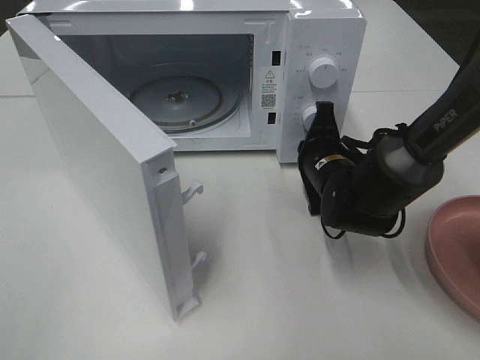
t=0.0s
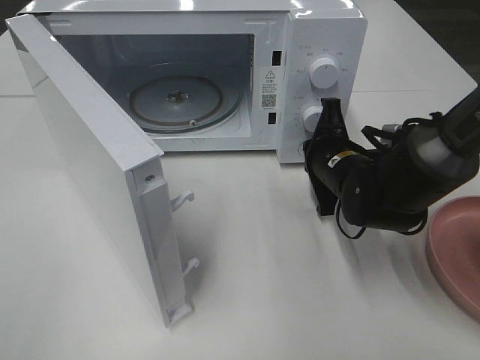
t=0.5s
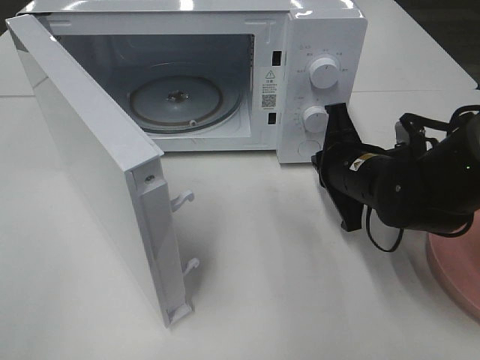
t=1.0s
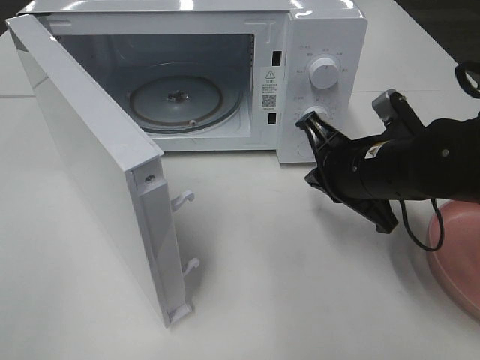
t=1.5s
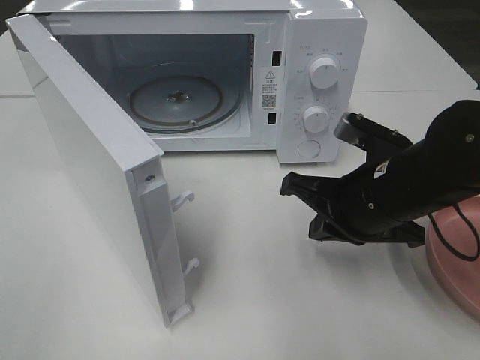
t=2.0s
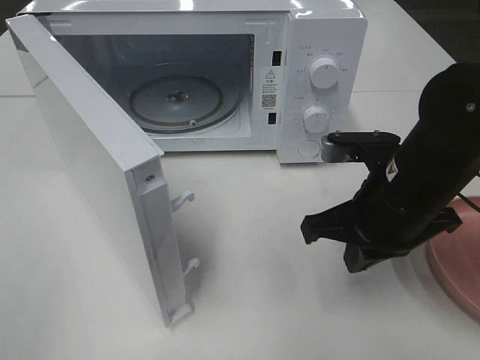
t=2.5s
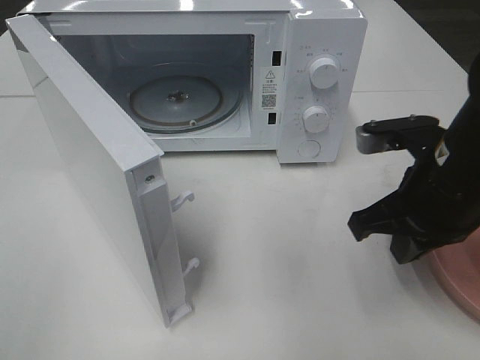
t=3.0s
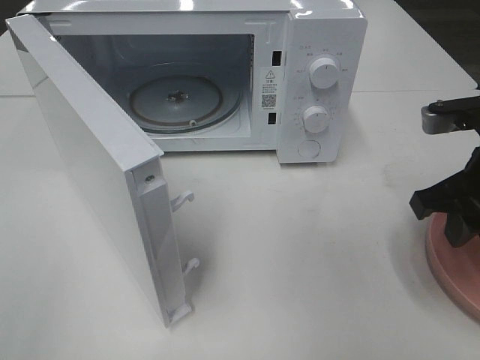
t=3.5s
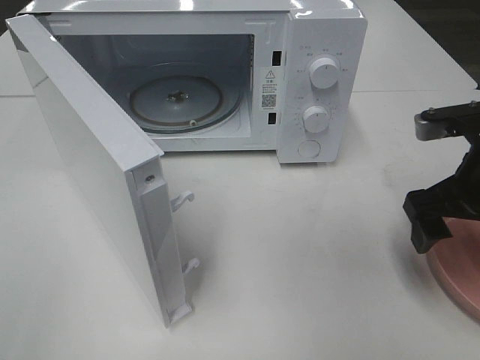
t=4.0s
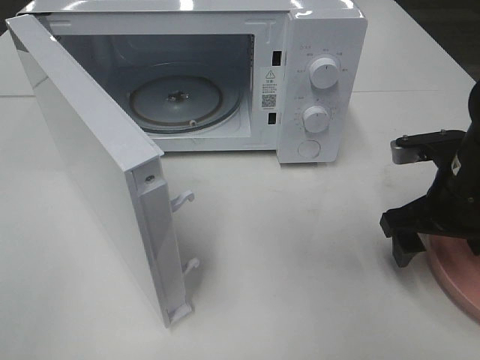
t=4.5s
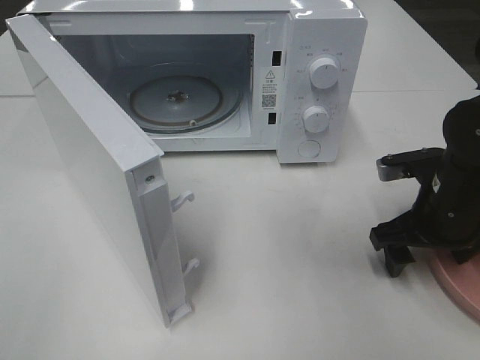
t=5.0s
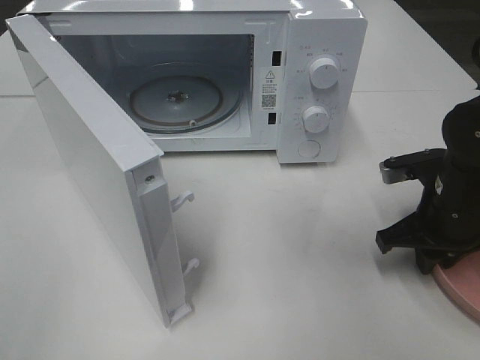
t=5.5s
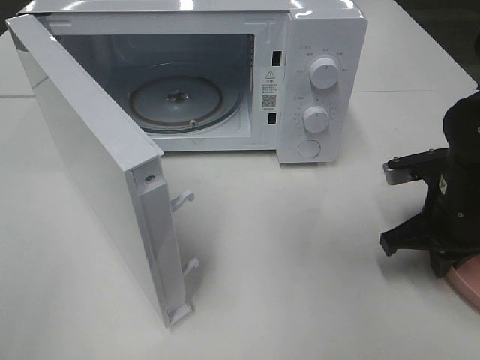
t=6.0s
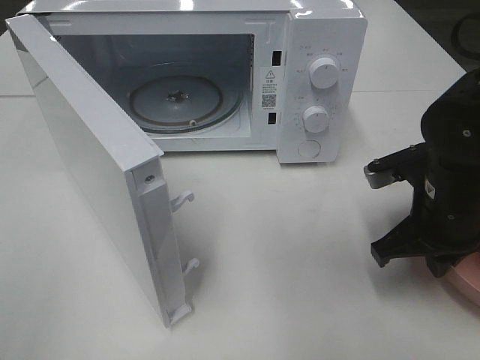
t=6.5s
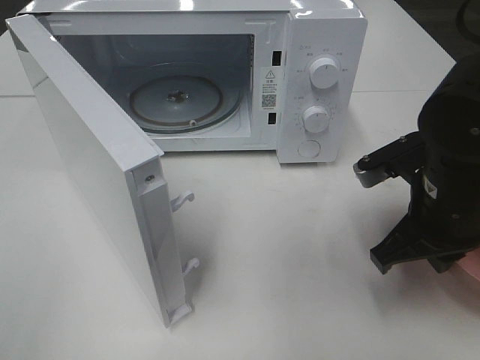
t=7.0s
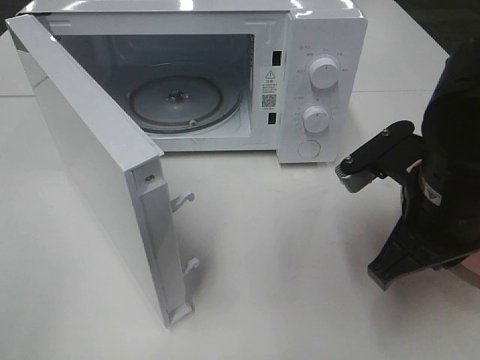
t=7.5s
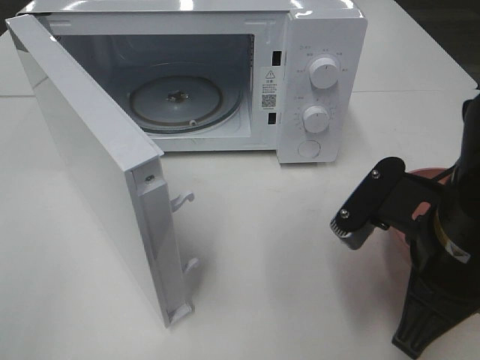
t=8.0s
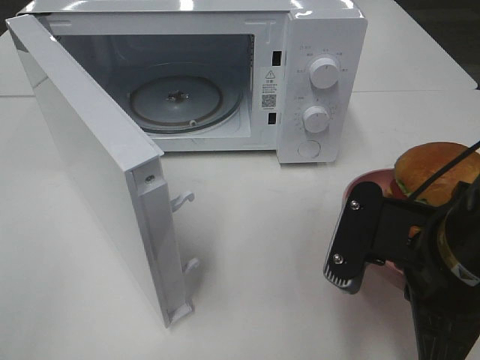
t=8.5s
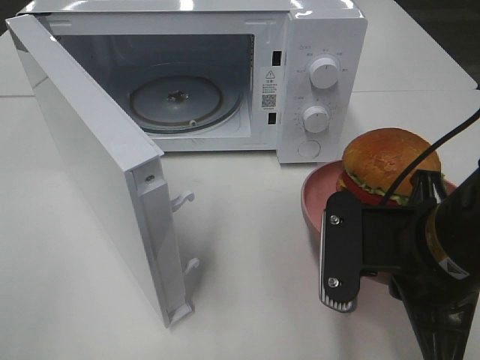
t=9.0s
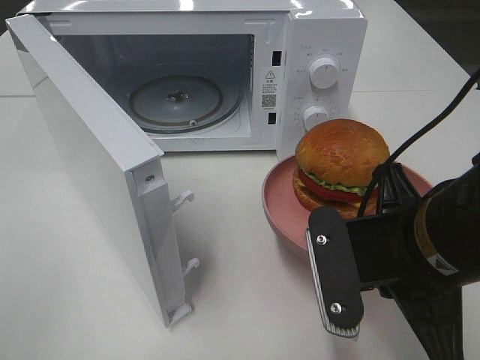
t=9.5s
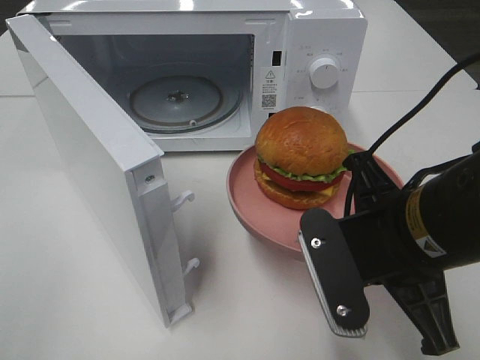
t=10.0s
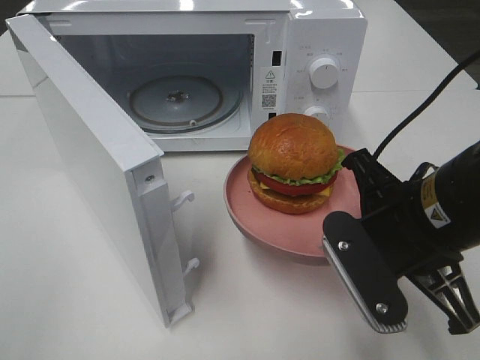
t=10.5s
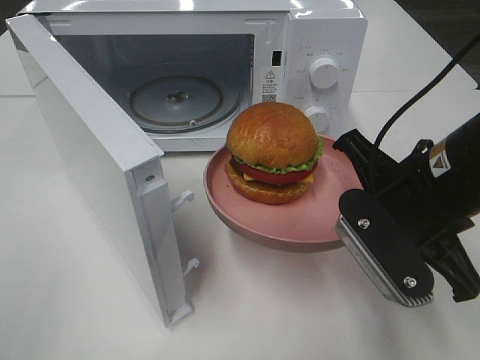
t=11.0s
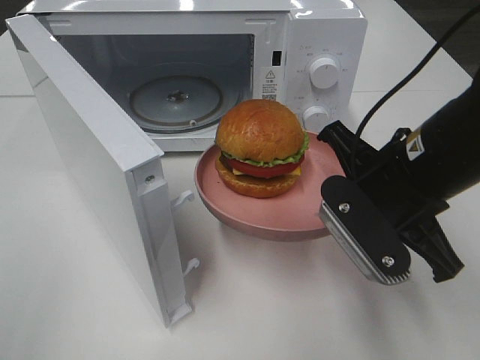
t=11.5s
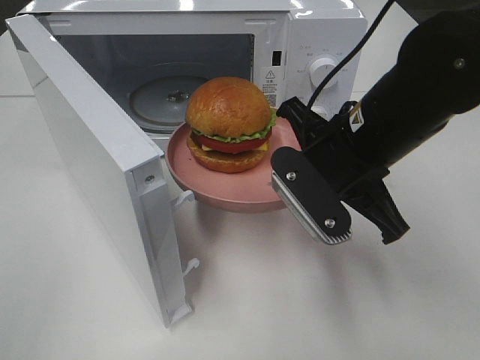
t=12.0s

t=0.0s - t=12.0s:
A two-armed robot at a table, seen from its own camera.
Task of the whole recording: Heat the burger.
Step, t=1.0s - t=5.5s: Right hand: grab the plate with the hamburger.
t=0.0s - t=2.0s: The right gripper moves backward and upward, roughly 15 cm.
t=2.0s - t=4.0s: The right gripper heads to the right, covering approximately 10 cm, and opens its fingers.
t=4.0s - t=6.0s: The right gripper goes approximately 5 cm downward, and closes up.
t=6.0s - t=8.0s: The right gripper goes roughly 15 cm backward, to the left and upward.
t=10.0s - t=12.0s: The right gripper heads forward, covering roughly 10 cm.

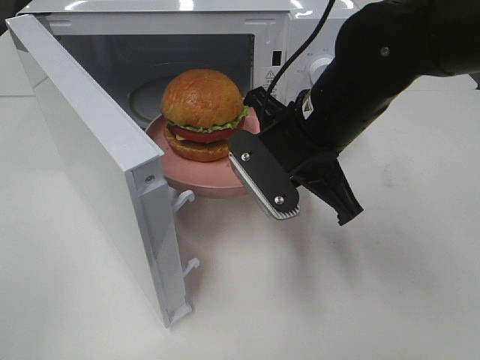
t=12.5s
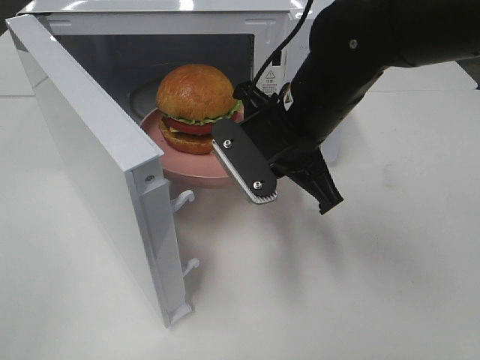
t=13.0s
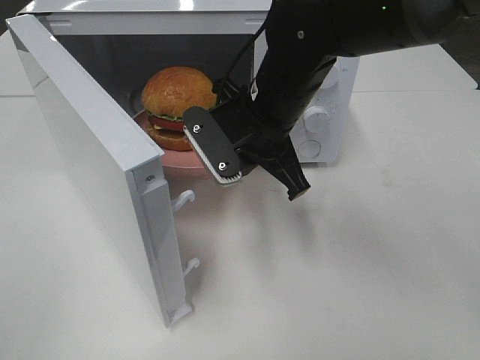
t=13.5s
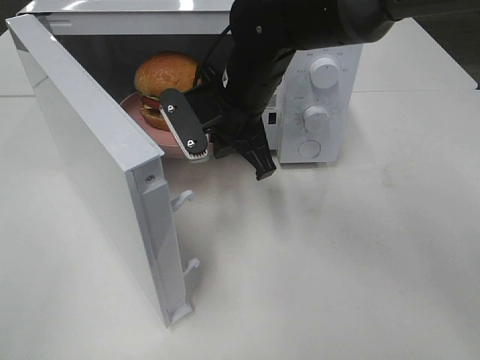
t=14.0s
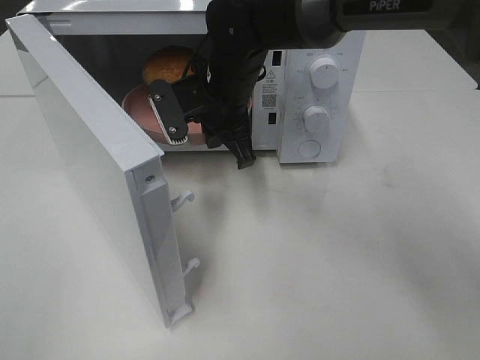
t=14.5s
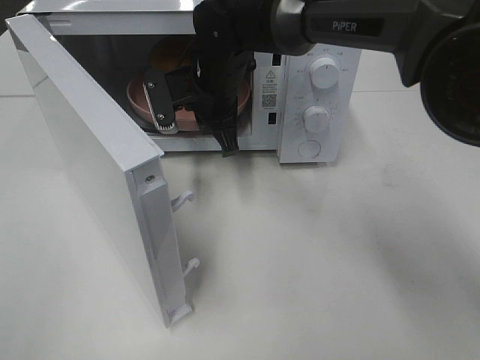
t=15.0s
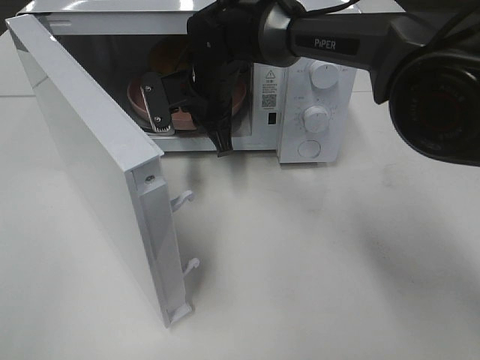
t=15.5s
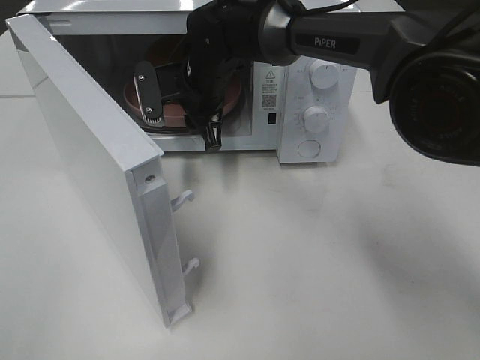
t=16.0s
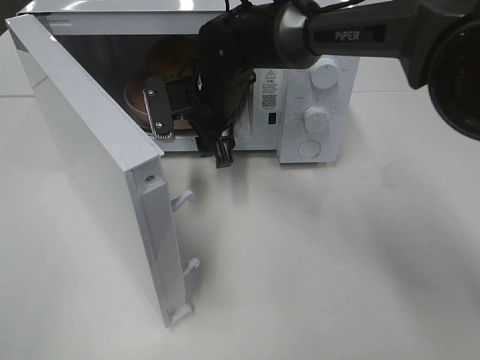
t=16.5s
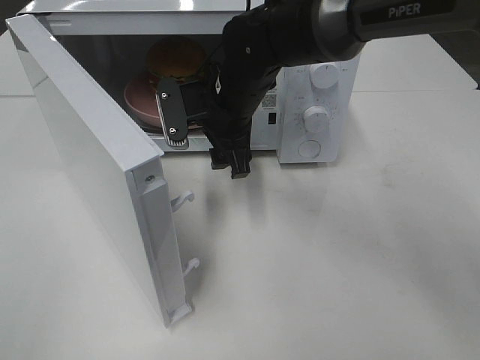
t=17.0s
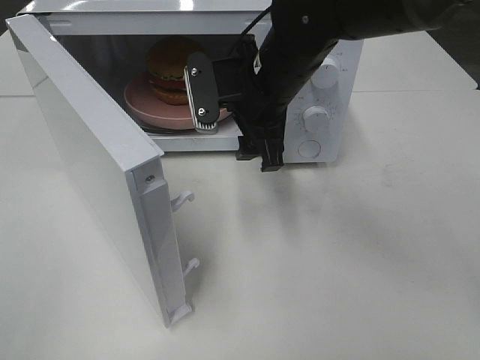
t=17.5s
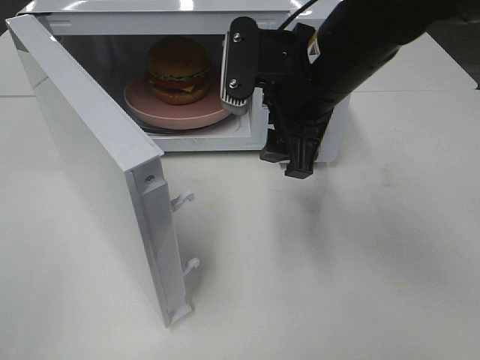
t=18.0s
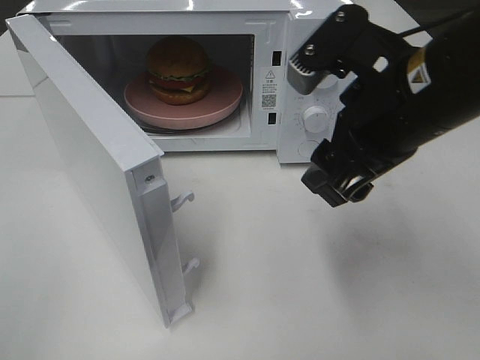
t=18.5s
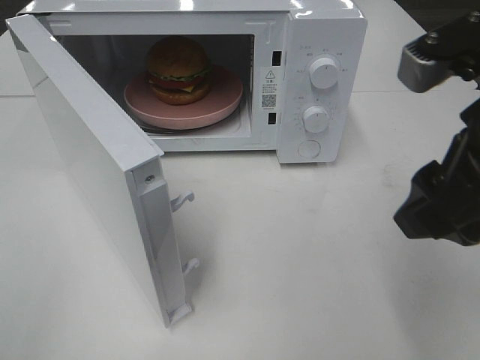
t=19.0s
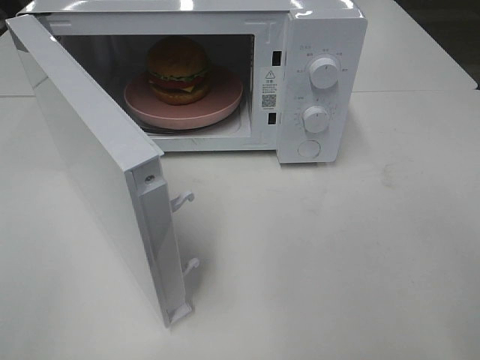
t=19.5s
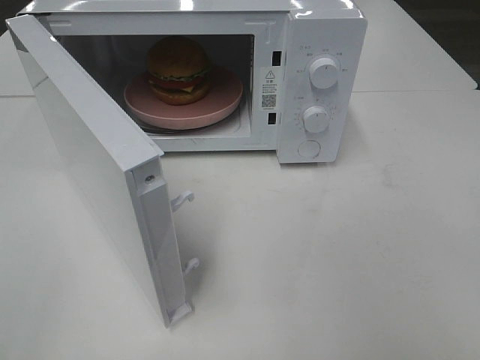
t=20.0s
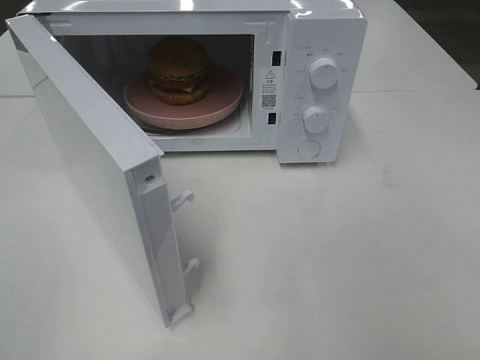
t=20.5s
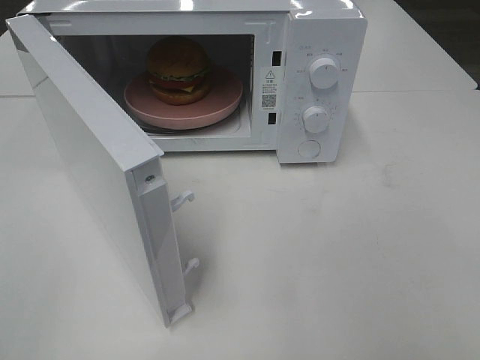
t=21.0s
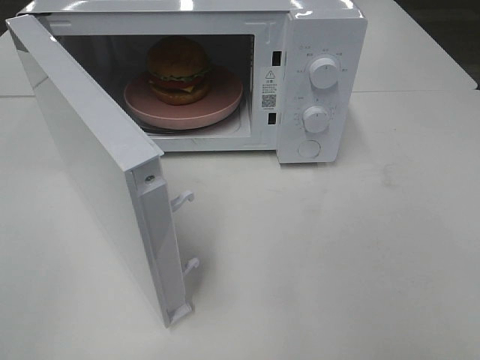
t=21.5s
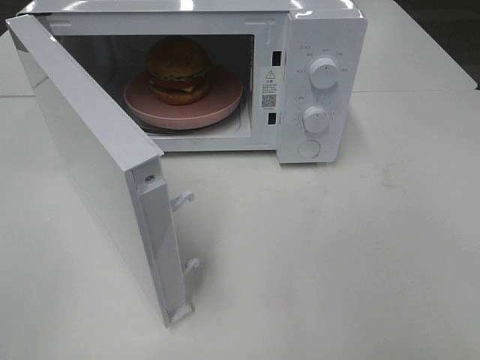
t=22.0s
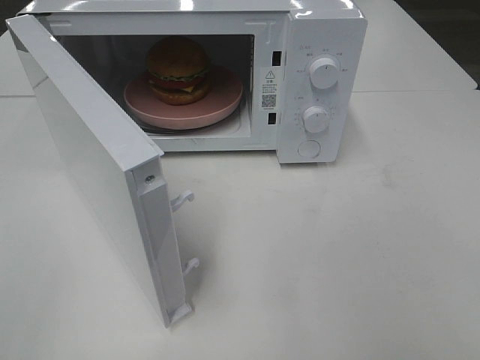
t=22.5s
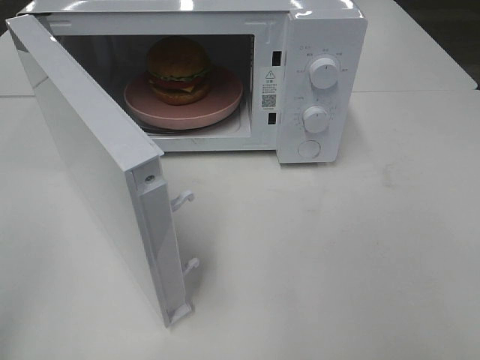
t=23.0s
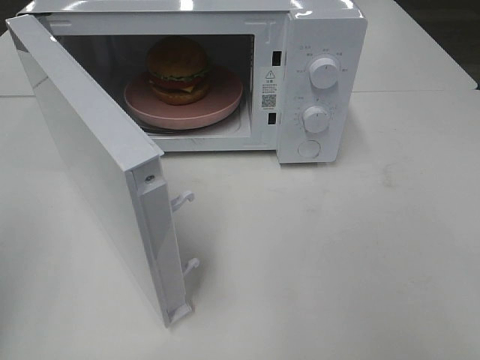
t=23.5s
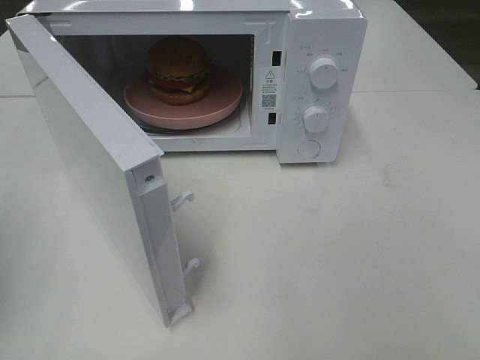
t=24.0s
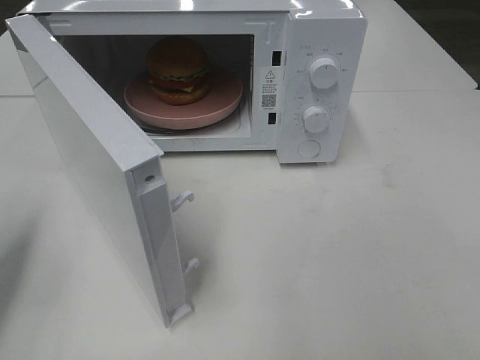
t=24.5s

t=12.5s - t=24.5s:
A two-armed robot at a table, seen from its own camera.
Task of the whole recording: Heat the burger.
Step, t=12.5s - t=15.5s: Right hand: place the plate in the microwave.
t=12.5s - t=14.5s: The right gripper goes about 15 cm forward and to the left.
t=14.5s - t=16.5s: The right gripper opens.
t=16.5s - t=18.5s: The right gripper moves backward, to the right and upward, roughly 25 cm.
t=18.5s - t=20.5s: The right gripper moves backward and to the right, roughly 25 cm.
t=20.5s - t=22.5s: Both grippers stay about where they are.
t=22.5s - t=24.5s: The left gripper moves forward and downward, some 20 cm, and closes up.

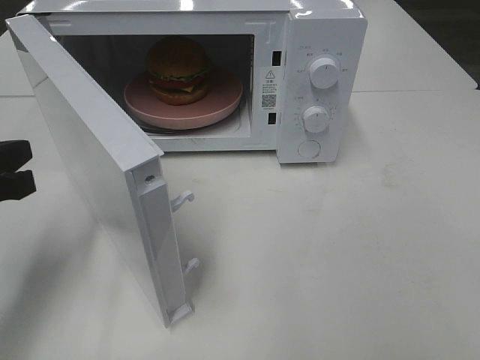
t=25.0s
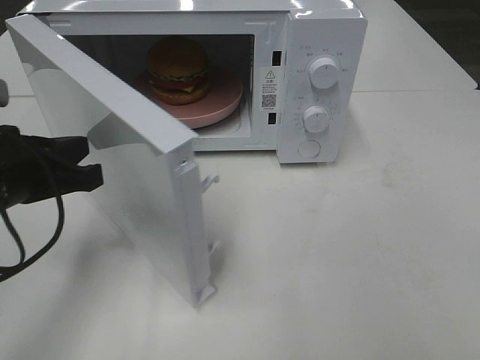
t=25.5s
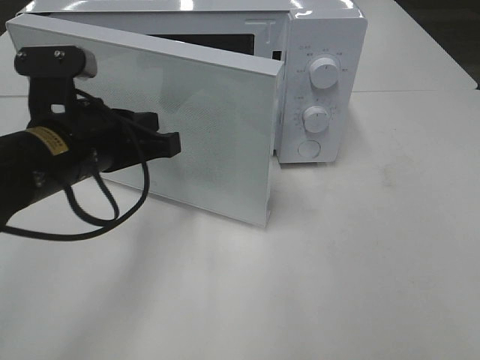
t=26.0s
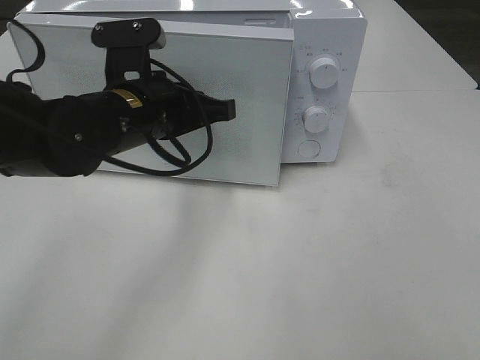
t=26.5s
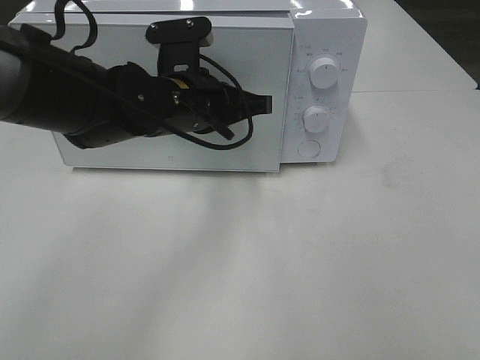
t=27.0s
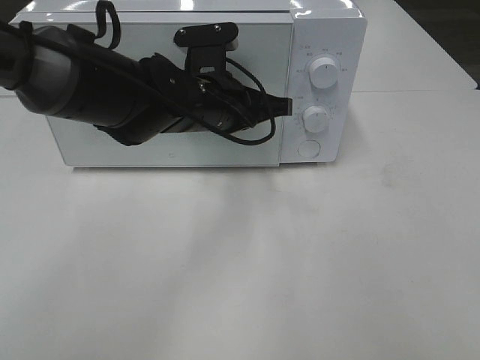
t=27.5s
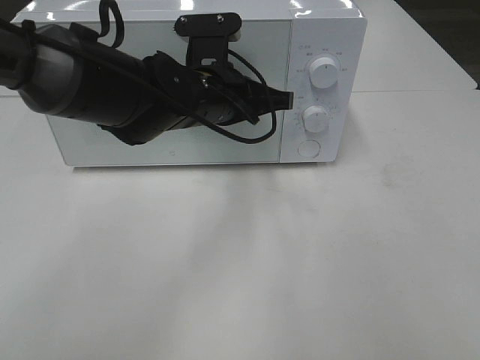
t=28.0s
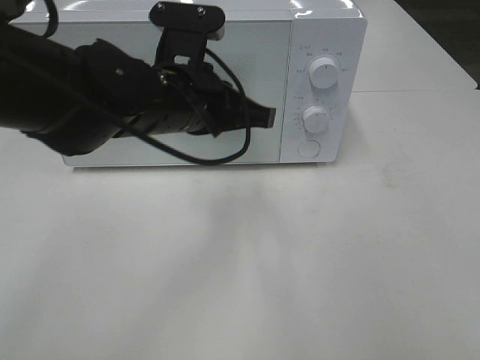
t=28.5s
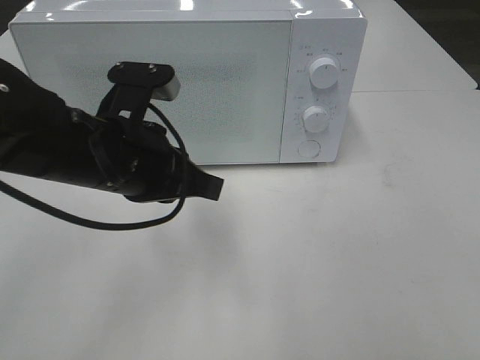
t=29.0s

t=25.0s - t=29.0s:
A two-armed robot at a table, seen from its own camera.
Task of the whole recording: Heat the burger.
Step, t=25.0s - t=28.0s: Left hand: close the microwave door.
t=25.0s - t=27.0s: The left gripper moves to the right and forward, roughly 25 cm.
t=27.0s - t=29.0s: The left gripper heads backward and to the left, covering about 10 cm.
